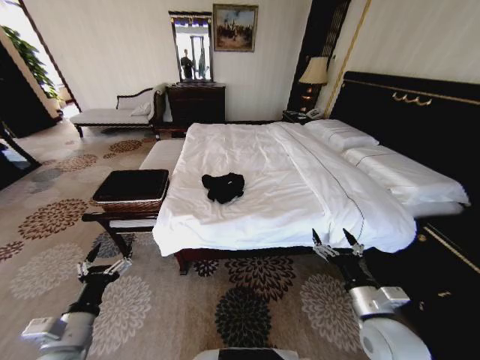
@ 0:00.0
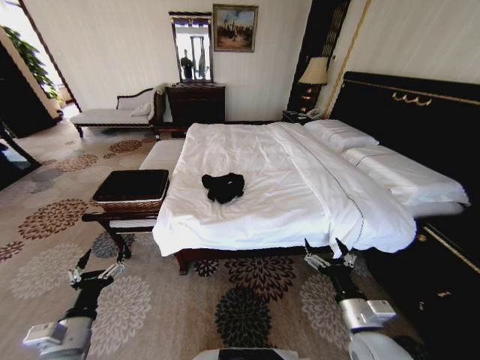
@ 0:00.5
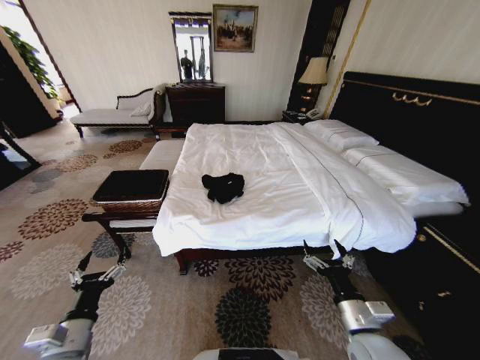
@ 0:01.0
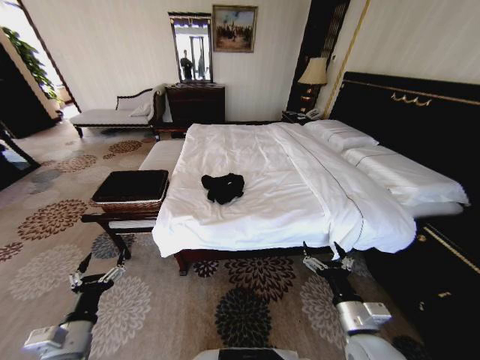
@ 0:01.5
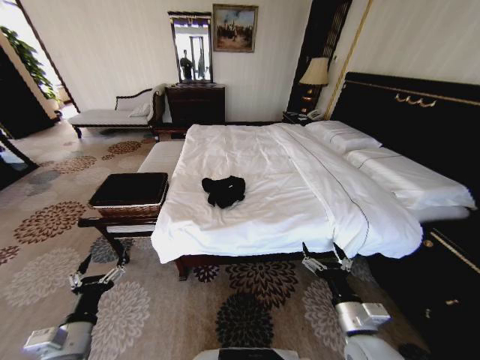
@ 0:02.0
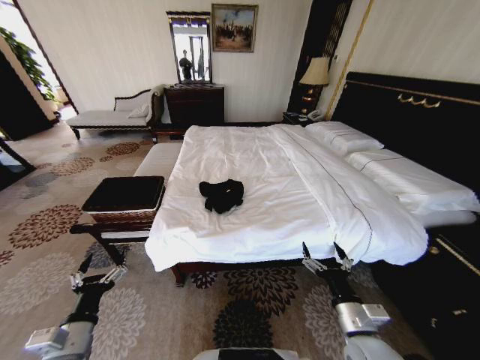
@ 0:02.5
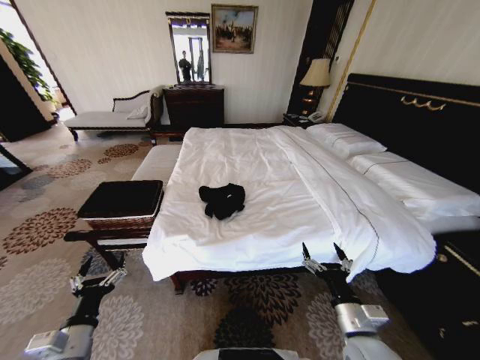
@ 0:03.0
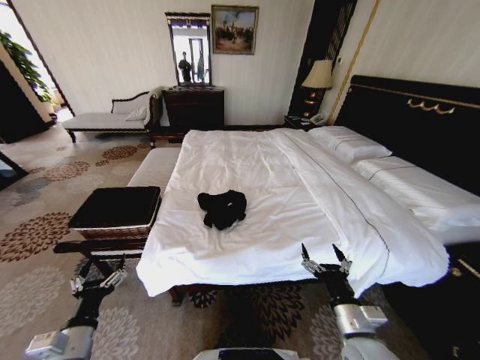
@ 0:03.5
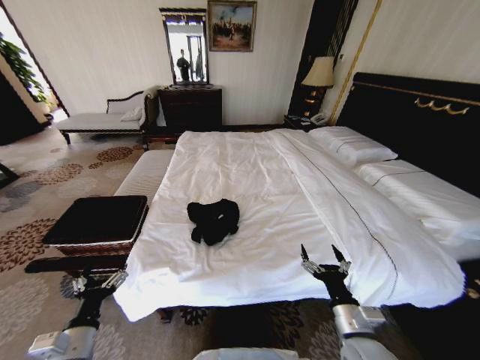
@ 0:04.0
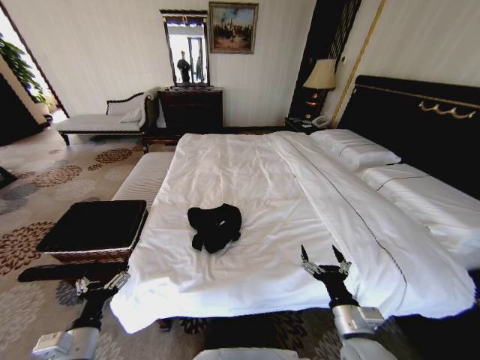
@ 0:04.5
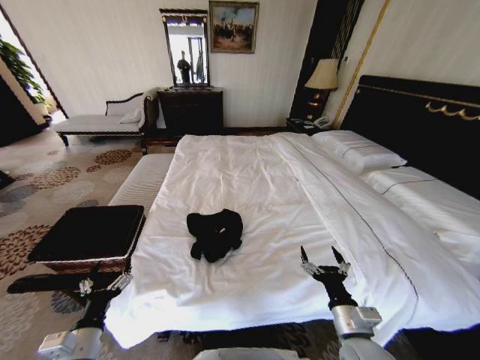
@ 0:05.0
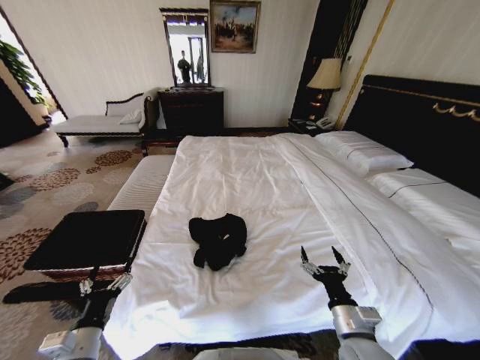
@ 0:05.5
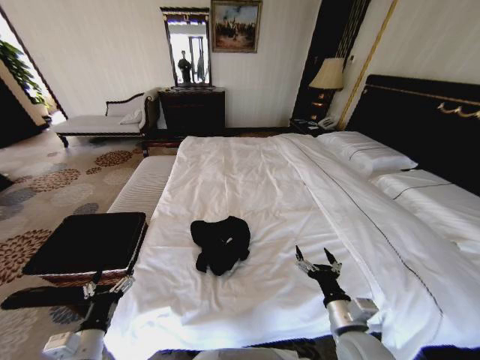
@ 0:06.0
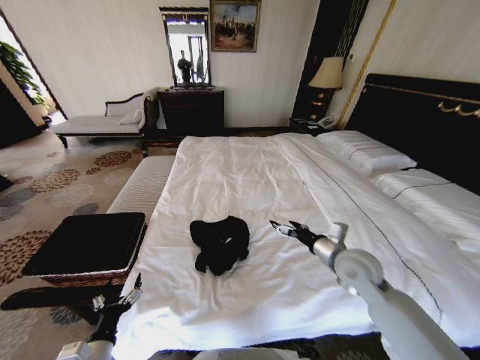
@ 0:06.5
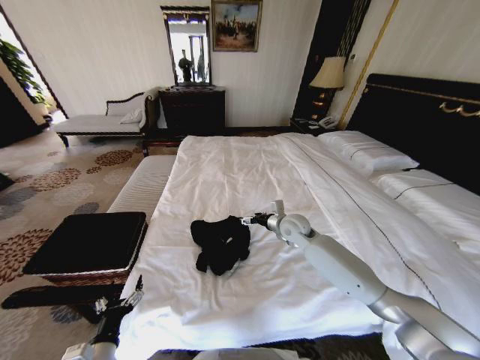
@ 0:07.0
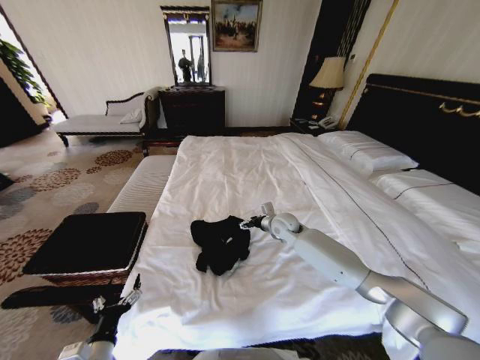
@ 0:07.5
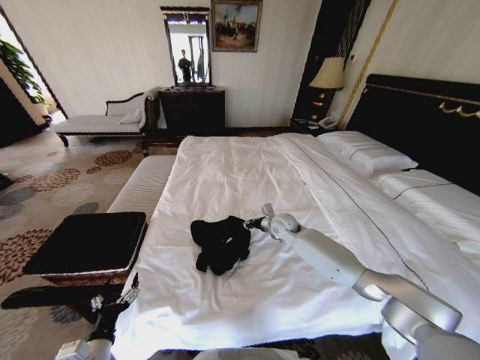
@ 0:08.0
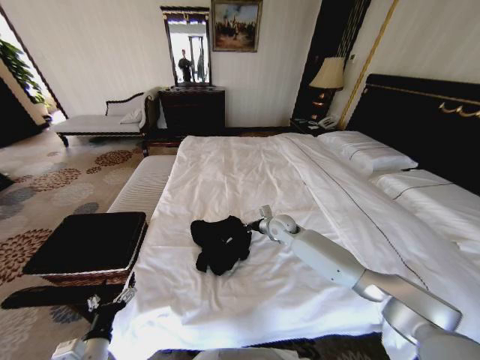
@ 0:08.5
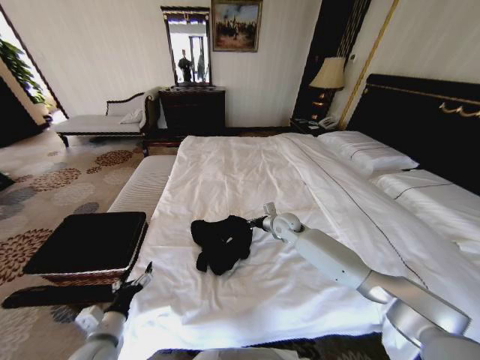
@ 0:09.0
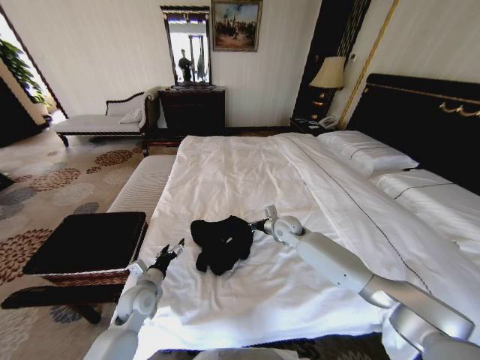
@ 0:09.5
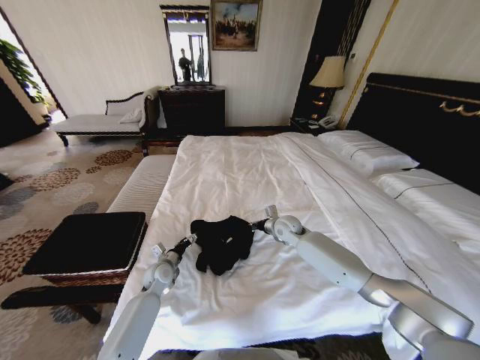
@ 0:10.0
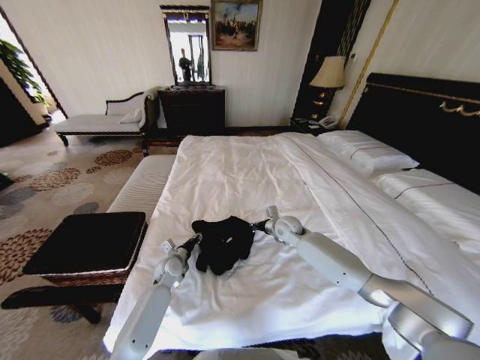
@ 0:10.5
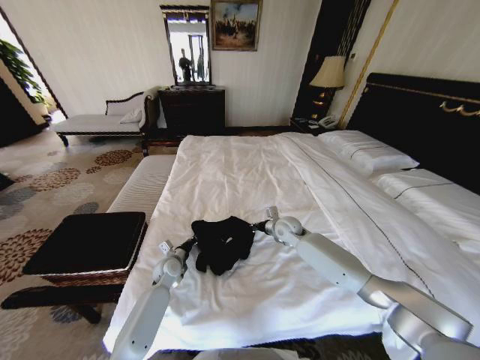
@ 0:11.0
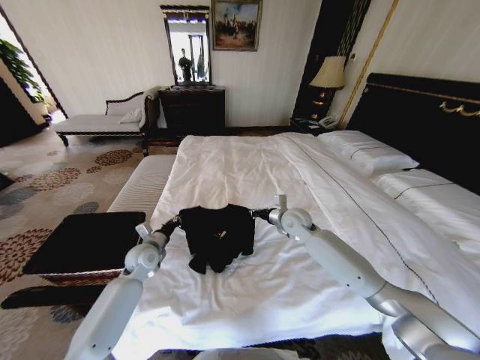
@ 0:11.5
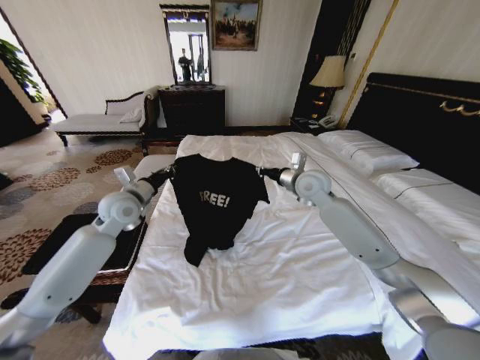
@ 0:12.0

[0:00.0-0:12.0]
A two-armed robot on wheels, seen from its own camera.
Task of the whole recording: Fold the clothes on the bed and place them into the basket.
0:06.0 to 0:08.0: The right gripper shifts about 35 cm forward, and closes its fingers.
0:08.0 to 0:10.0: The right gripper closes up; the left gripper heads forward, covering some 30 cm.
0:10.0 to 0:12.0: The two grippers go some 25 cm upward. The left gripper closes.

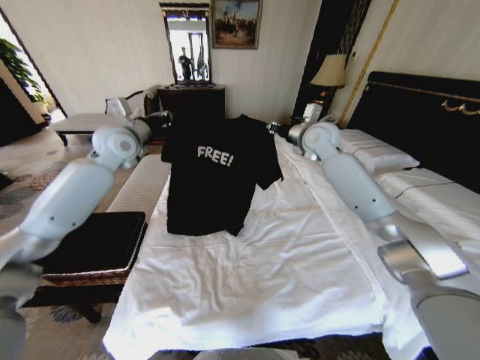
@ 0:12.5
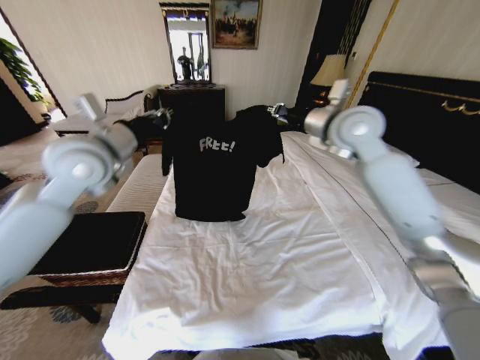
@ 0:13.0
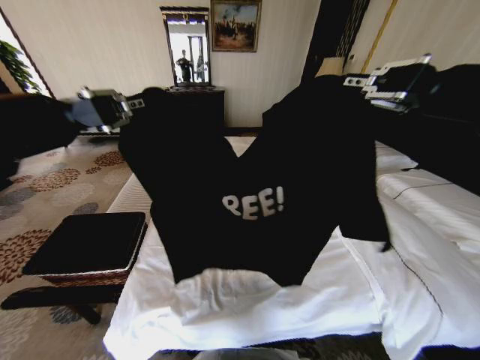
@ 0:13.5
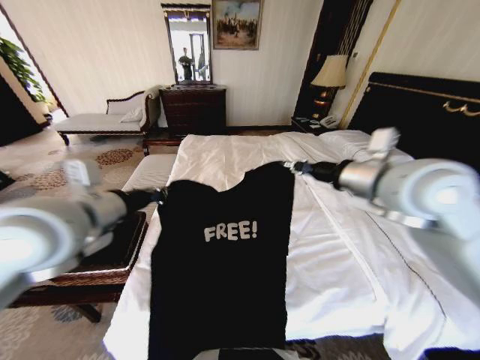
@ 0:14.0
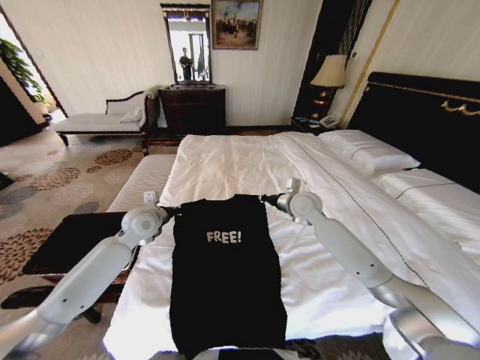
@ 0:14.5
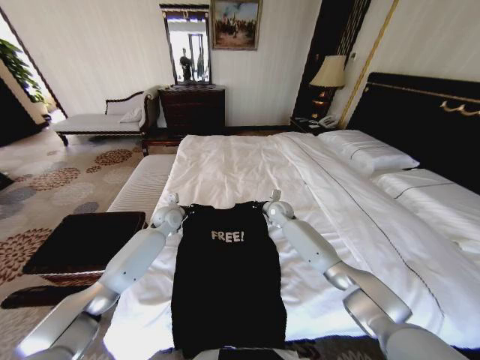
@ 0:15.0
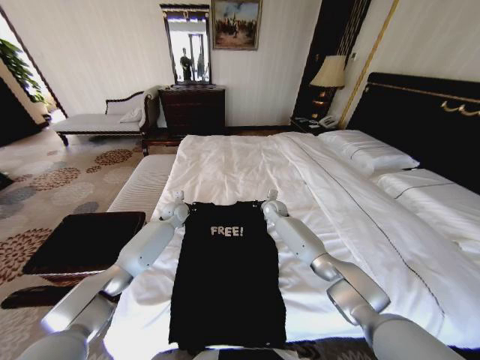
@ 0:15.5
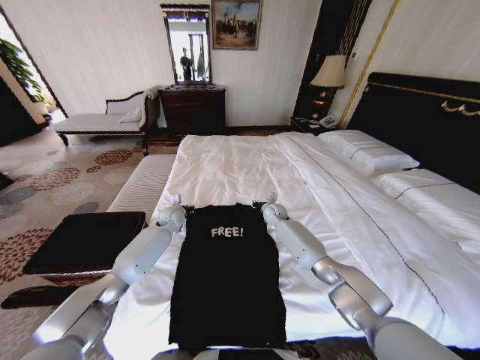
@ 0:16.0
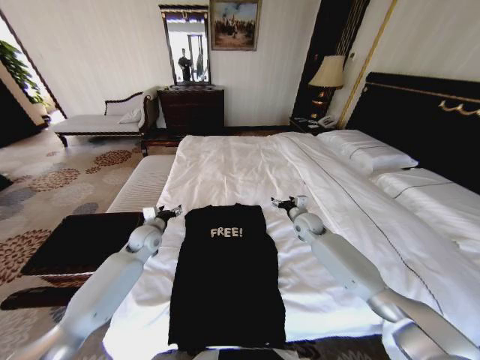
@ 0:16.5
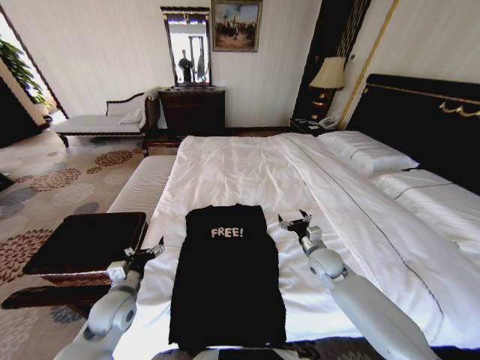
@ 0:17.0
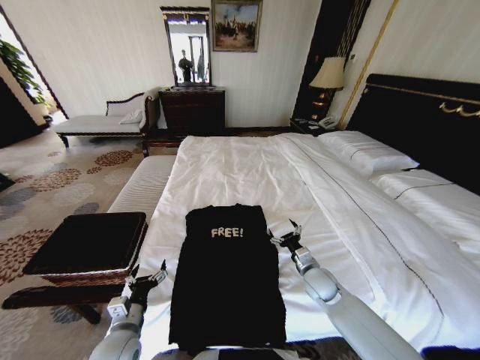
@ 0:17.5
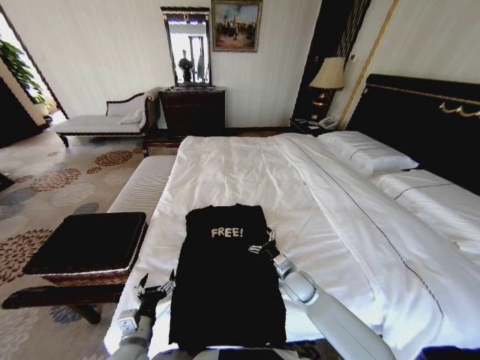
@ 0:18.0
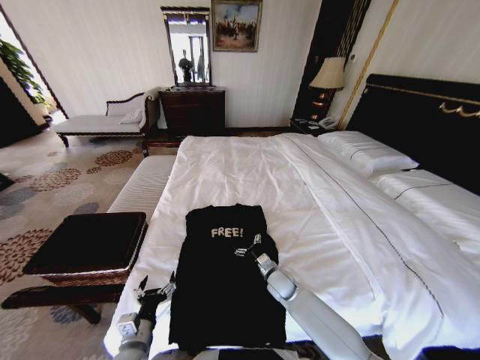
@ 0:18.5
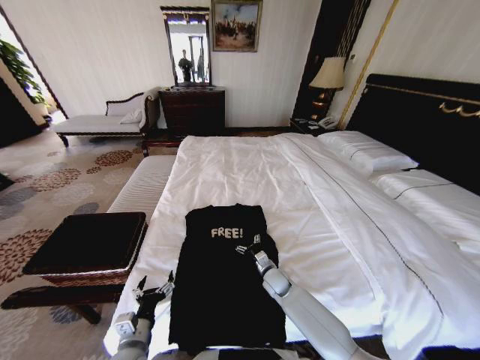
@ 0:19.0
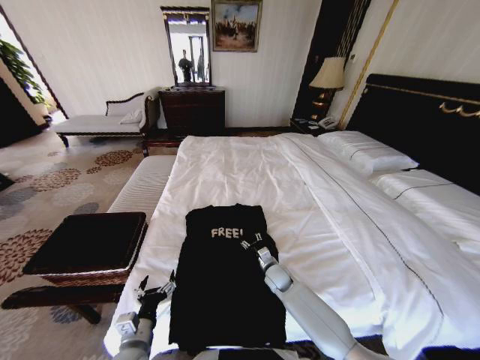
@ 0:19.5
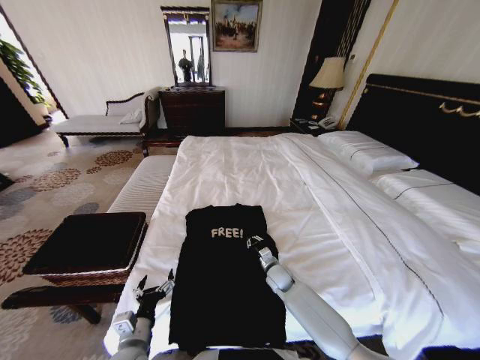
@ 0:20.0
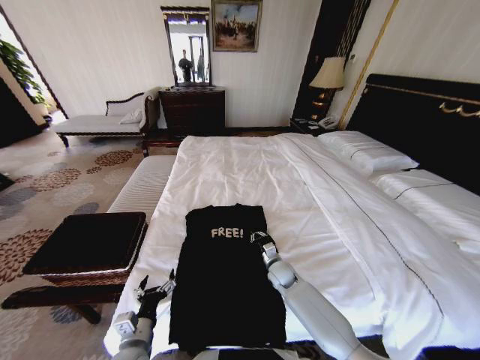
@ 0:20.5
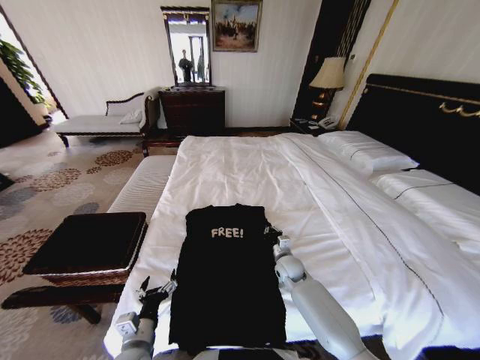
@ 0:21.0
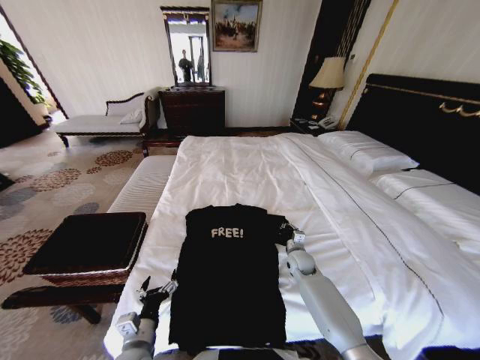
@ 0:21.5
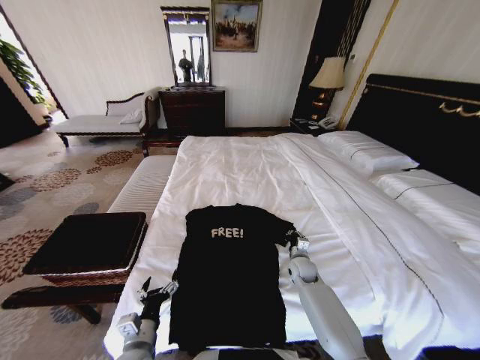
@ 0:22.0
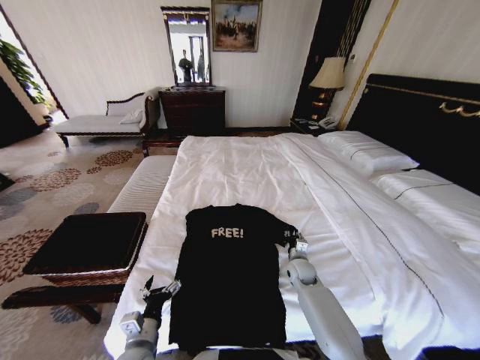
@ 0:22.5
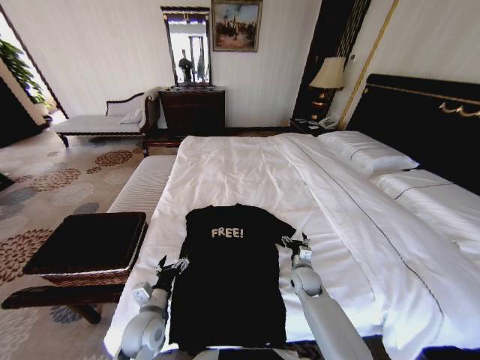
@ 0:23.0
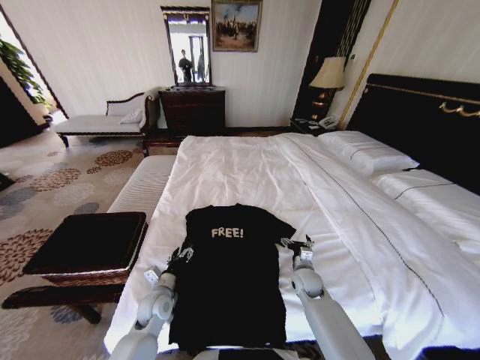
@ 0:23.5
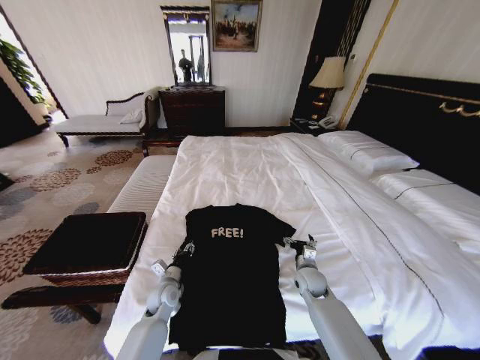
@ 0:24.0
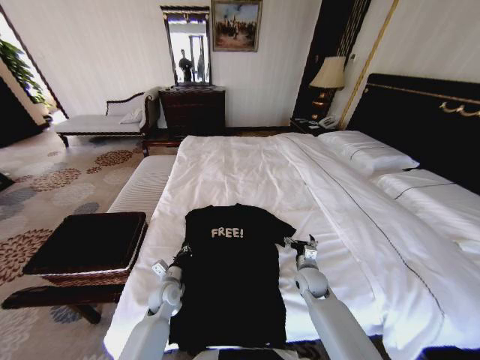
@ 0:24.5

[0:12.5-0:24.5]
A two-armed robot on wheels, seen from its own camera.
Task of the whole recording: Fold the clothes on the bed and place them into the basket.
0:12.5 to 0:14.5: The two grippers go approximately 20 cm downward. The right gripper travels backward and back again, some 35 cm each way, while the left gripper moves some 35 cm backward and comes back.
0:14.5 to 0:16.5: The right gripper shifts approximately 15 cm downward and to the right, and opens its fingers. The left gripper shifts about 10 cm downward, travels forward and back again, approximately 15 cm each way, and opens up.
0:16.5 to 0:18.5: The left gripper moves backward, roughly 30 cm, while the right gripper travels backward, downward and to the left by some 25 cm.
0:18.5 to 0:20.5: The right gripper closes up.
0:20.5 to 0:22.5: The right gripper heads to the right, covering about 5 cm.
0:22.5 to 0:24.5: The left gripper travels forward by approximately 15 cm, and closes up; the right gripper ends up roughly 5 cm from where it was, and opens its fingers.

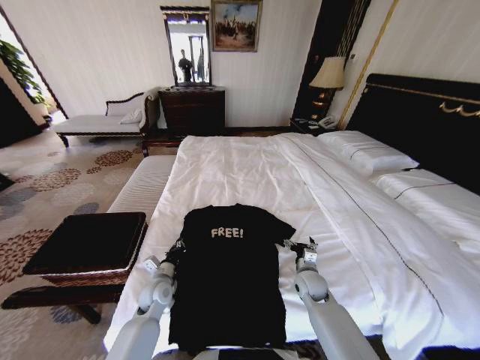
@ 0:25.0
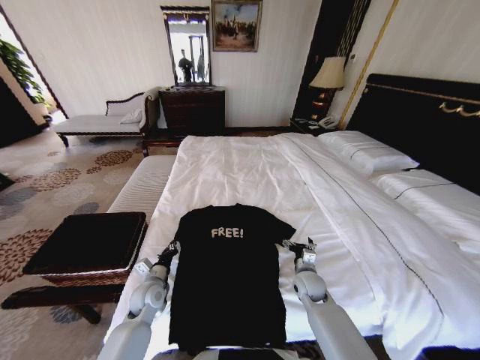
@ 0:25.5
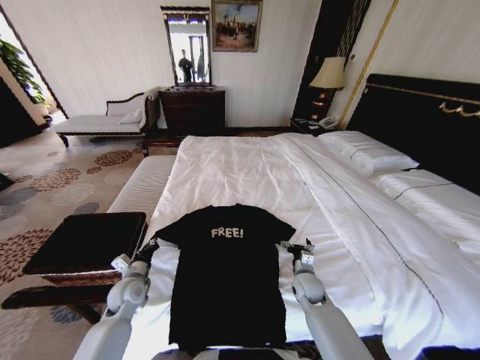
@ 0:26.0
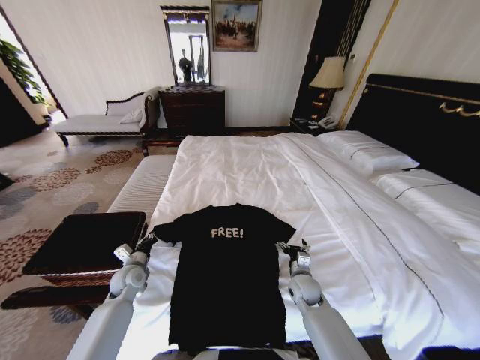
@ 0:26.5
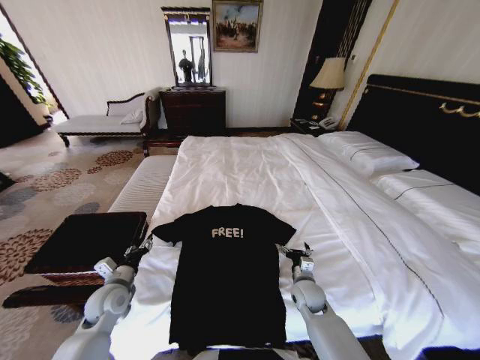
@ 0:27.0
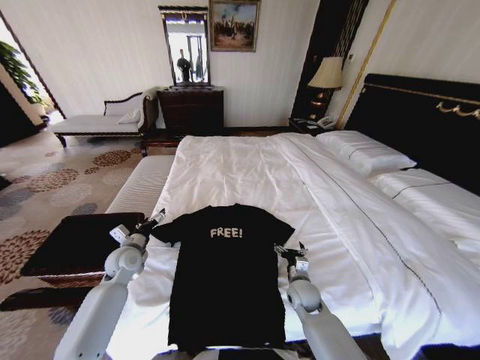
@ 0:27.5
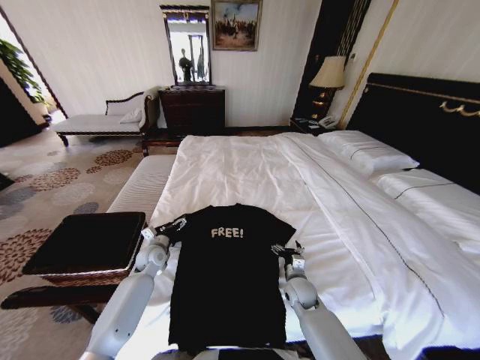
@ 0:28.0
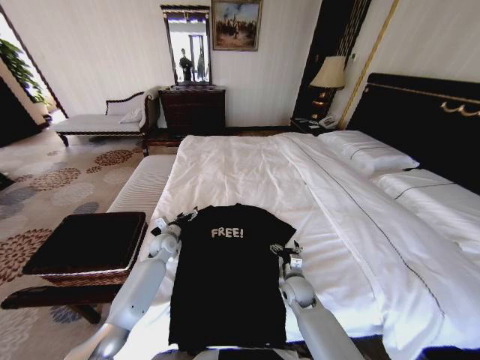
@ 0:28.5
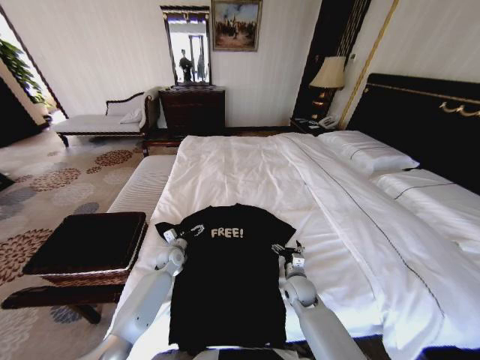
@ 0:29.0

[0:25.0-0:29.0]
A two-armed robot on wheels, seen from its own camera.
Task of the whole recording: Fold the clothes on the bed and place them into the basket.
0:25.0 to 0:27.0: The left gripper is displaced to the left and upward by roughly 10 cm, and opens.
0:27.0 to 0:29.0: The left gripper heads forward, to the right and downward, covering some 20 cm, and opens up.
